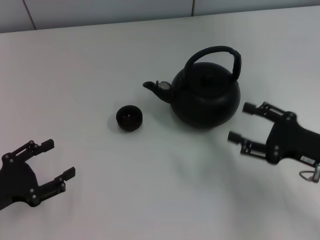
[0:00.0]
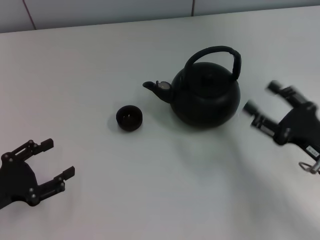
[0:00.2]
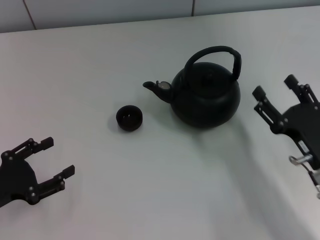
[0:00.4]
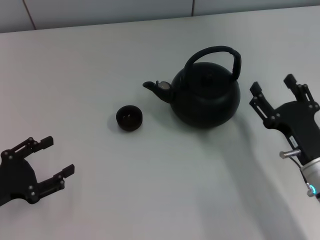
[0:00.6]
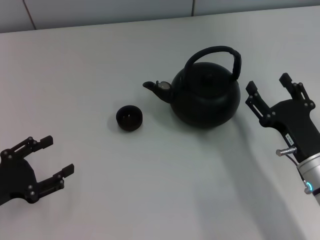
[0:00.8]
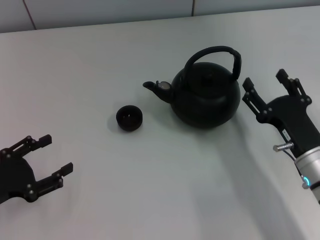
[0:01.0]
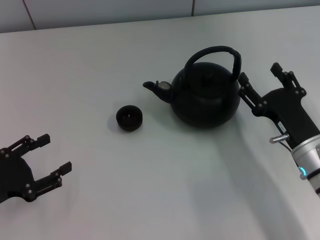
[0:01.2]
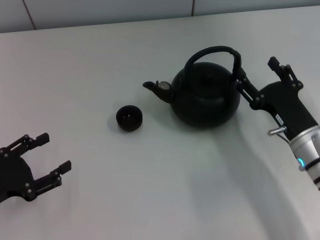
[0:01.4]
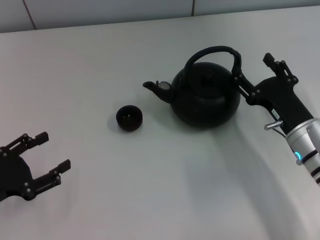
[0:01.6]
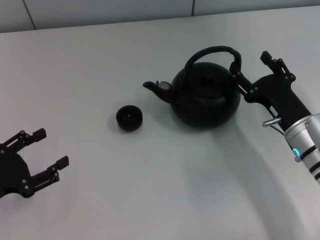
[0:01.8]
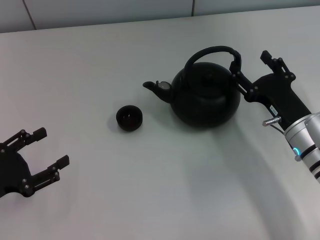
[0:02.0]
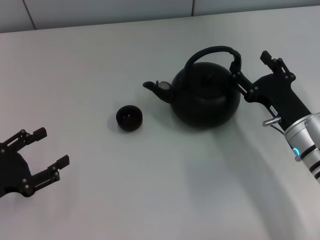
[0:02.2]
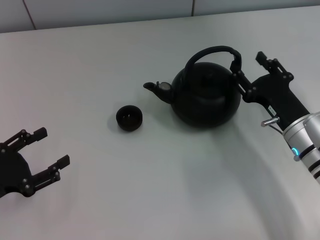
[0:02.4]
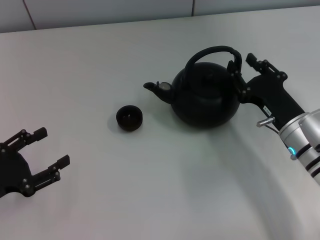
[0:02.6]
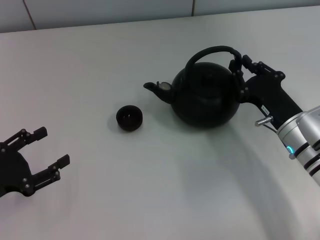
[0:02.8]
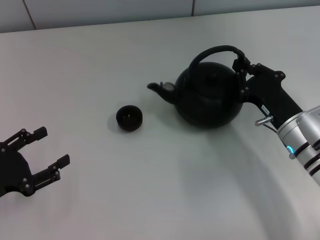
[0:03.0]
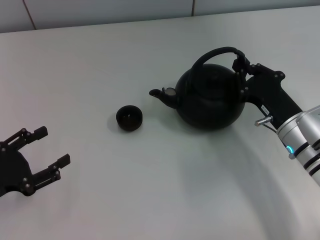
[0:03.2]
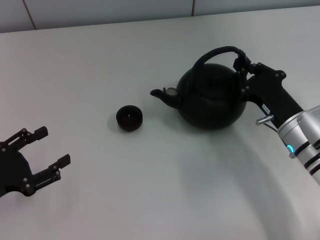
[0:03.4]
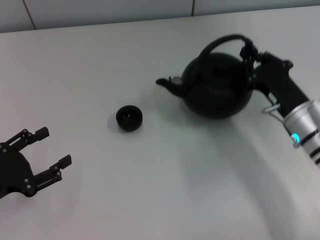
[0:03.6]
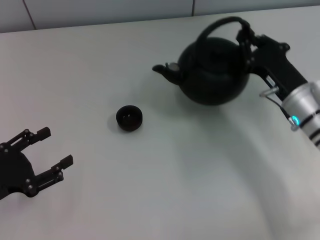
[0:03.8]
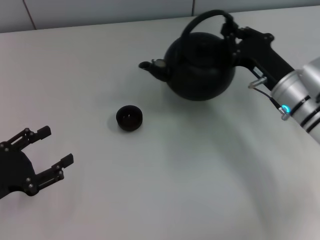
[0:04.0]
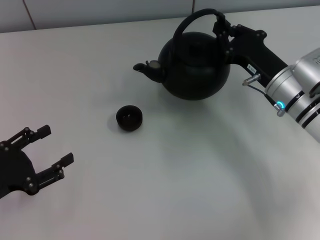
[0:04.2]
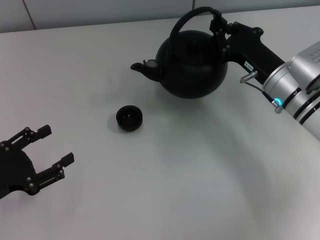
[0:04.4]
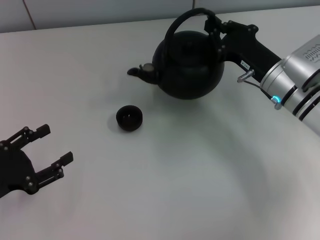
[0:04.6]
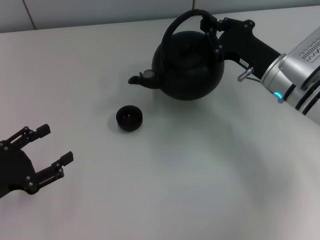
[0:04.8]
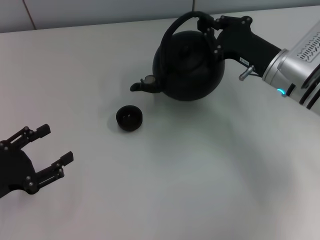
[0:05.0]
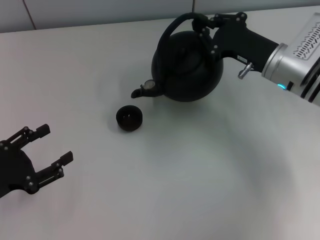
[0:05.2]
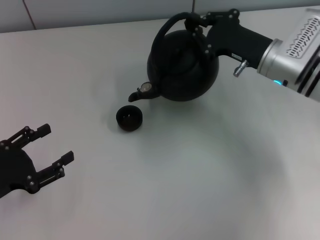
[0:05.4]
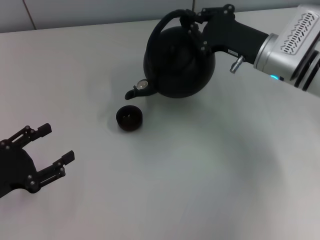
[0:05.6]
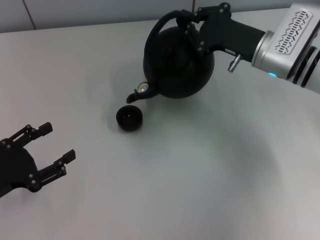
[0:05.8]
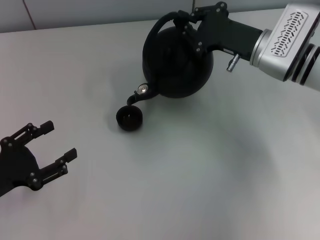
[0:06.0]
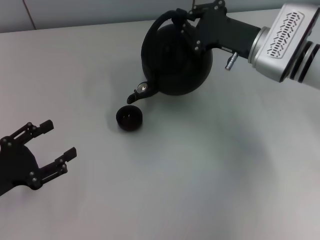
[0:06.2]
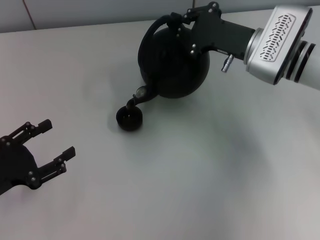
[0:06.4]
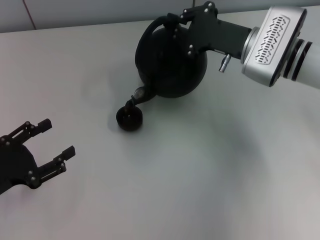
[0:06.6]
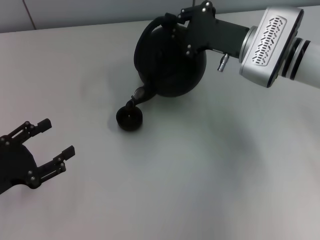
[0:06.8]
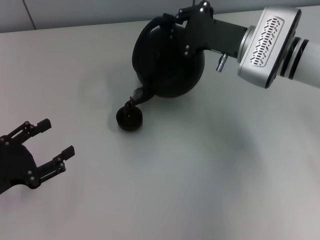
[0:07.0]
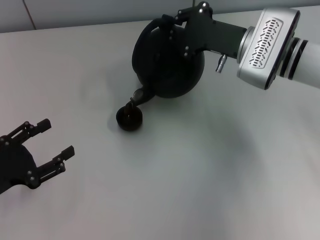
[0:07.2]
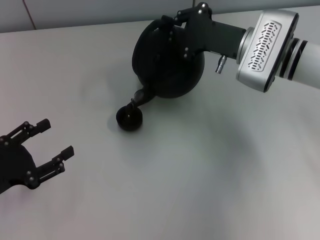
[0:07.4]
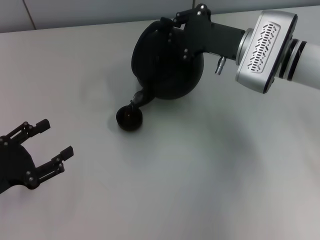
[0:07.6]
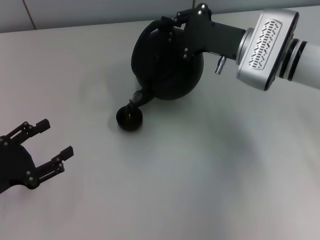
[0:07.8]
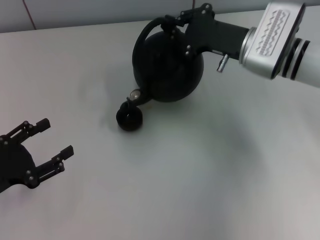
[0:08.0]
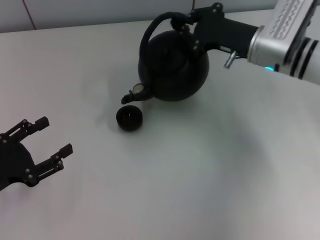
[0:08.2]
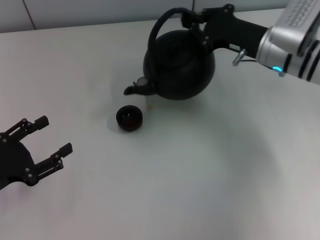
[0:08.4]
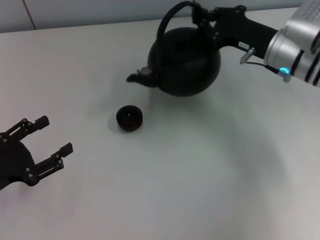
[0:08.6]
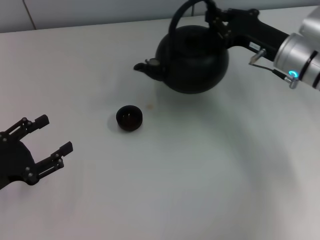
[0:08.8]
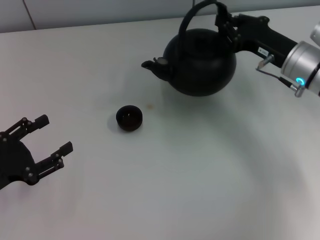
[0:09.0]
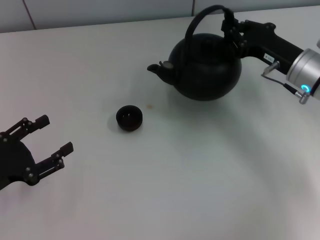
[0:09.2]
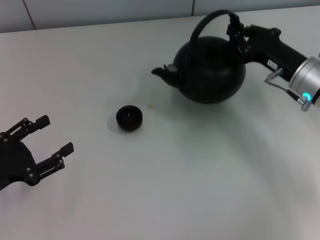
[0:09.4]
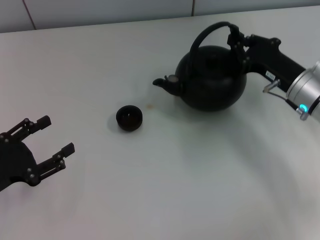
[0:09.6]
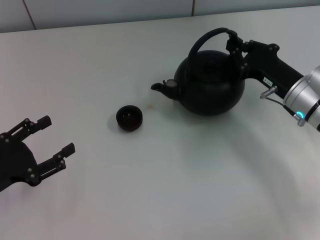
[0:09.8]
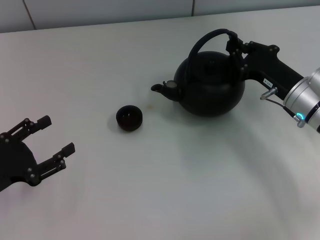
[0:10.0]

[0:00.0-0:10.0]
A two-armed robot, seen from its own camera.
Task of the whole recording: Grasp the handle of the teapot with one hand and pour tea into the teacup.
Step, 0.0 to 3.6 s: Pick up the teapot with the right gripper.
0.0 to 1.4 s: The right gripper moves to the left, approximately 5 cm.
1.4 to 2.8 s: The right gripper closes.
2.8 to 4.2 s: The right gripper goes about 5 cm forward, and closes up.
4.2 to 5.8 s: The right gripper ends up some 5 cm from where it was.
5.8 to 7.2 s: There are only small adjustments of the grippers.
8.6 to 10.0 s: The right gripper moves backward and downward, about 10 cm.

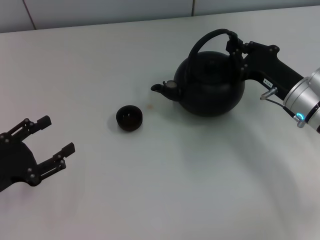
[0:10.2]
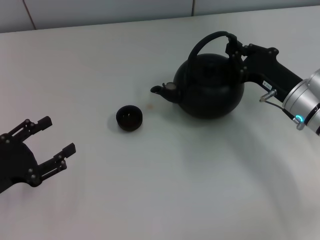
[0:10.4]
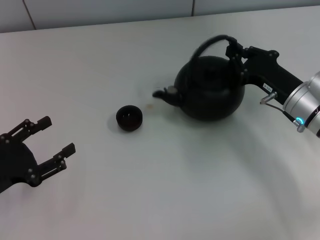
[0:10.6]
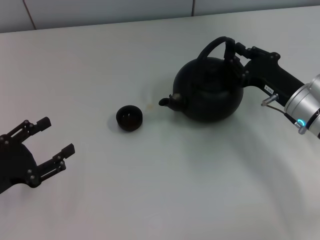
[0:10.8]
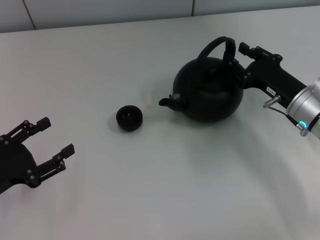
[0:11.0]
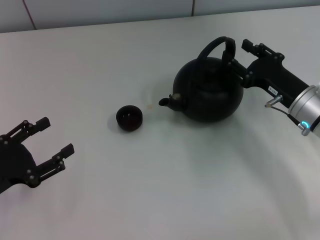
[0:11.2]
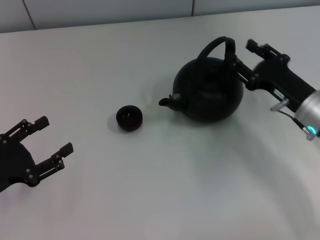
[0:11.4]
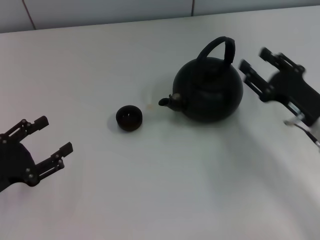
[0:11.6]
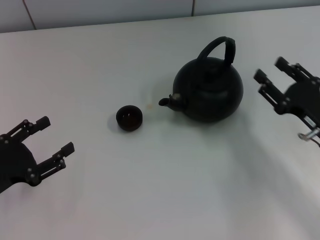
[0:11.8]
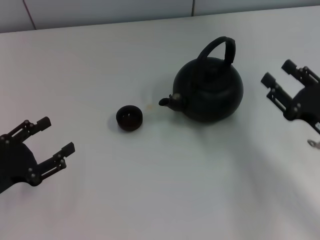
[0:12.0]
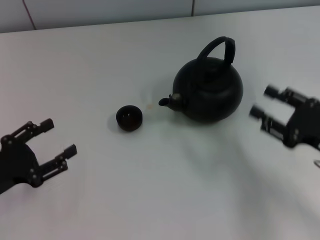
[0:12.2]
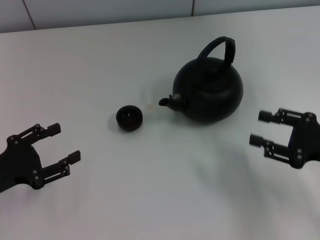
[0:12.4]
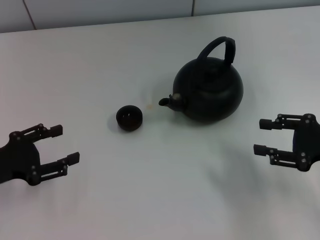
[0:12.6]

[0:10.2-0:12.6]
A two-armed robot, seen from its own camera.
Task of the whole recording: Grasp the handle of the teapot with one hand and pour tea into the teacup.
10.2 to 11.4 s: The right gripper opens.
11.4 to 12.6 s: The right gripper goes roughly 10 cm to the right and backward.

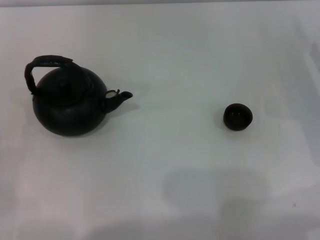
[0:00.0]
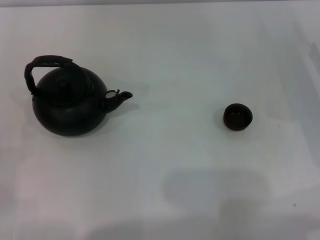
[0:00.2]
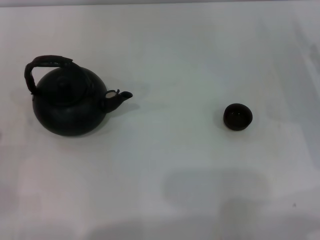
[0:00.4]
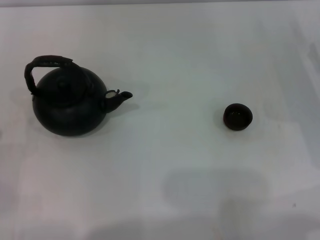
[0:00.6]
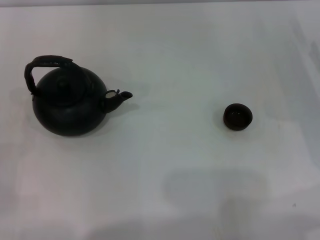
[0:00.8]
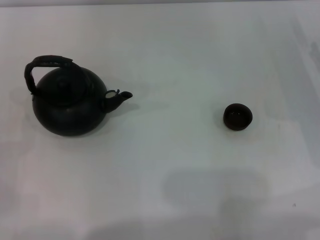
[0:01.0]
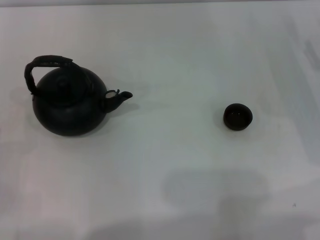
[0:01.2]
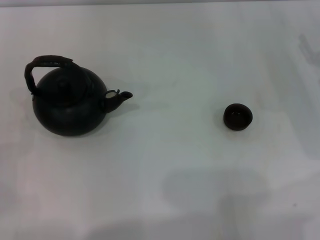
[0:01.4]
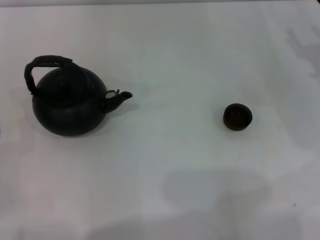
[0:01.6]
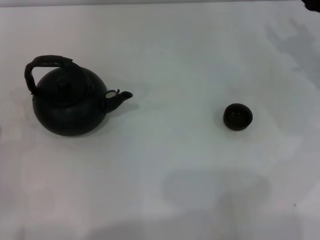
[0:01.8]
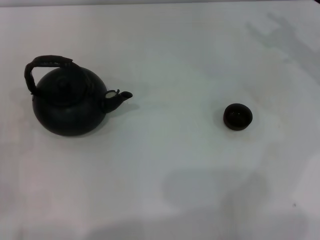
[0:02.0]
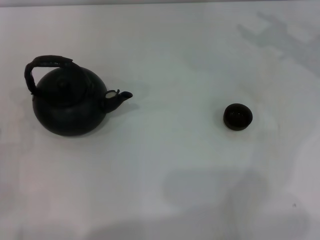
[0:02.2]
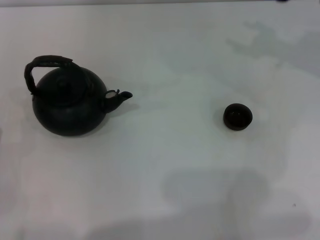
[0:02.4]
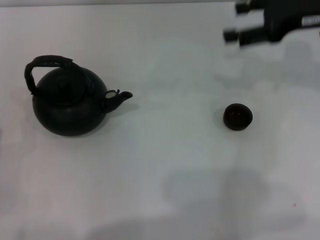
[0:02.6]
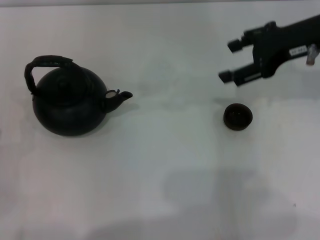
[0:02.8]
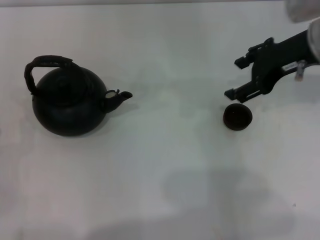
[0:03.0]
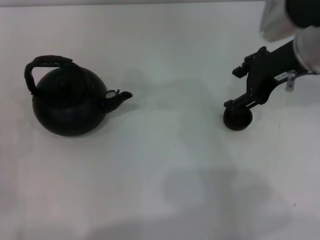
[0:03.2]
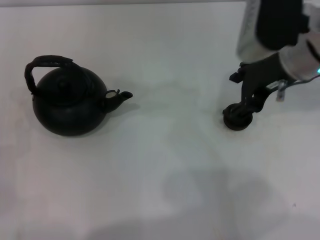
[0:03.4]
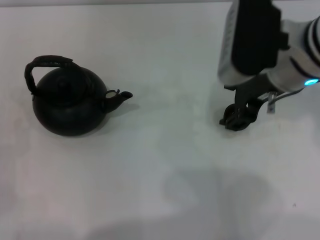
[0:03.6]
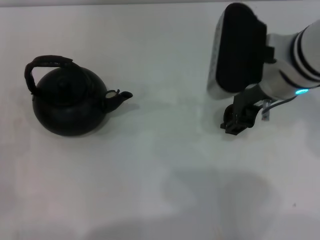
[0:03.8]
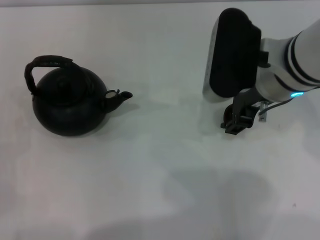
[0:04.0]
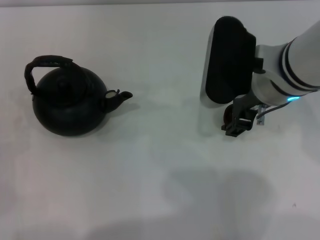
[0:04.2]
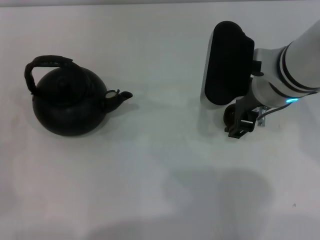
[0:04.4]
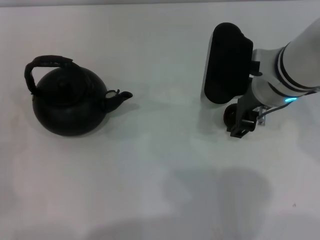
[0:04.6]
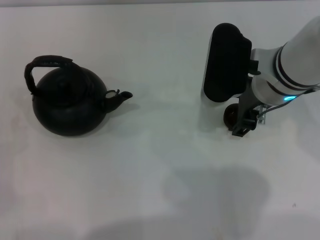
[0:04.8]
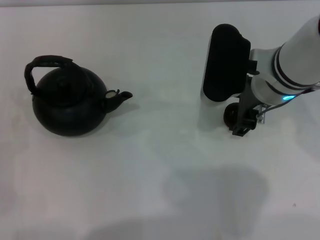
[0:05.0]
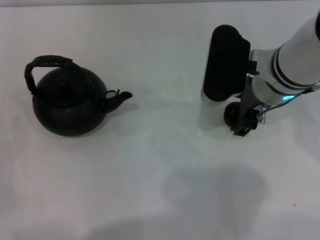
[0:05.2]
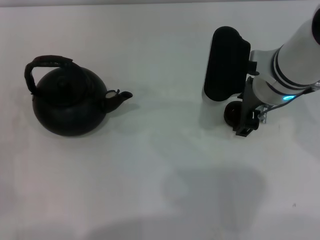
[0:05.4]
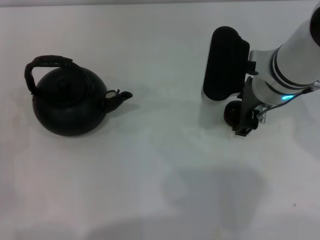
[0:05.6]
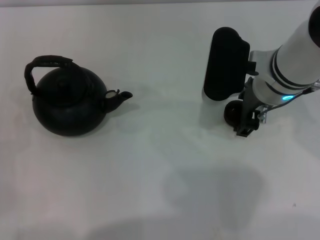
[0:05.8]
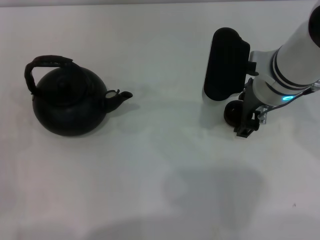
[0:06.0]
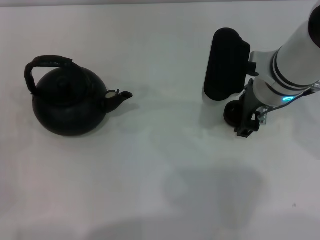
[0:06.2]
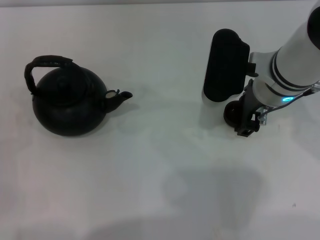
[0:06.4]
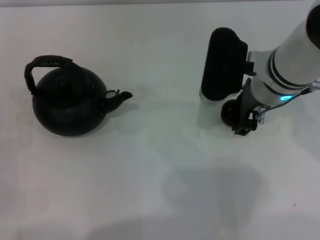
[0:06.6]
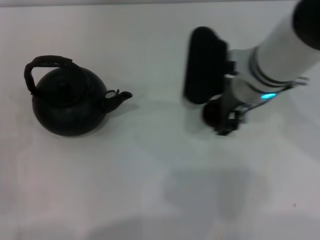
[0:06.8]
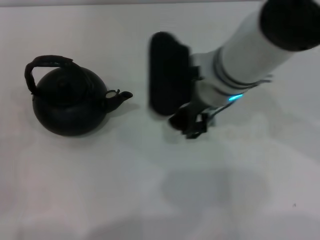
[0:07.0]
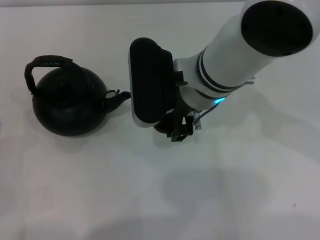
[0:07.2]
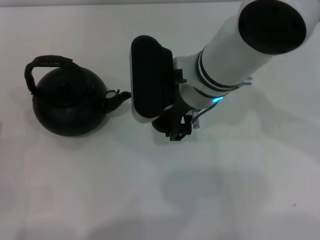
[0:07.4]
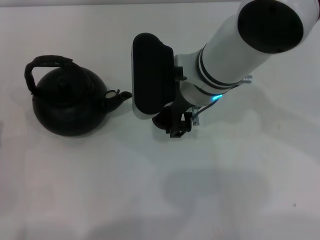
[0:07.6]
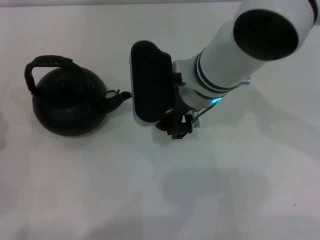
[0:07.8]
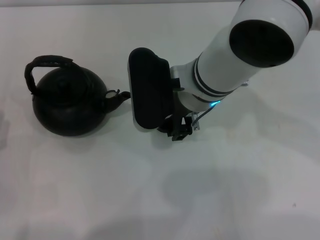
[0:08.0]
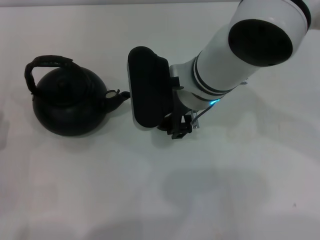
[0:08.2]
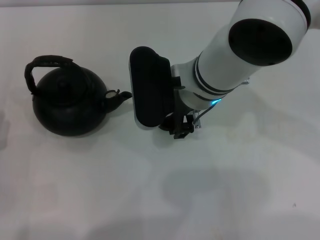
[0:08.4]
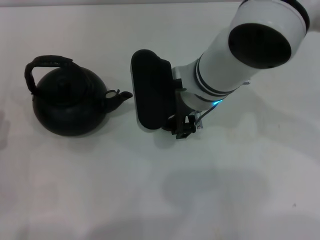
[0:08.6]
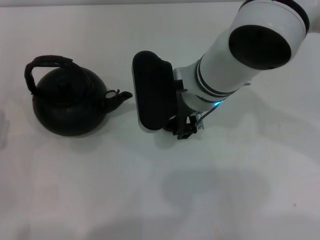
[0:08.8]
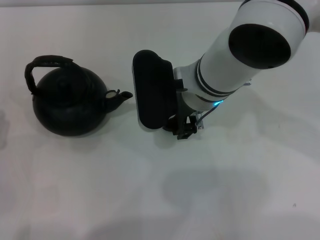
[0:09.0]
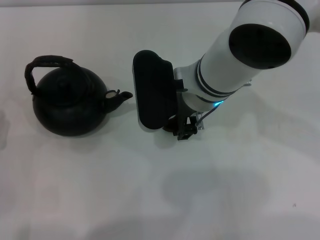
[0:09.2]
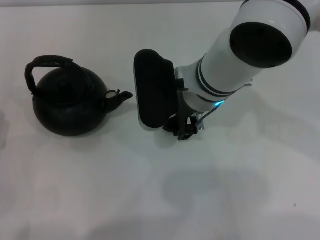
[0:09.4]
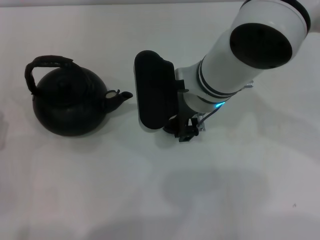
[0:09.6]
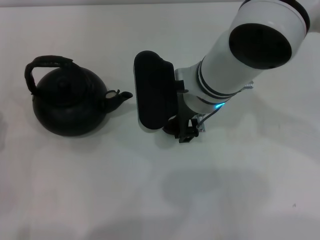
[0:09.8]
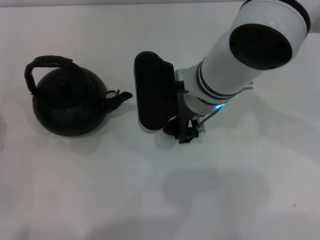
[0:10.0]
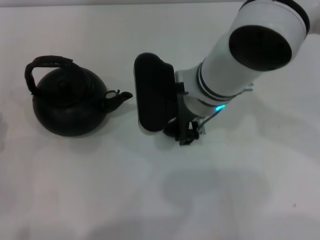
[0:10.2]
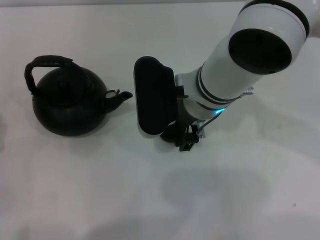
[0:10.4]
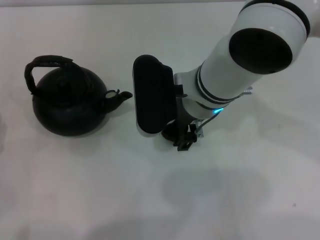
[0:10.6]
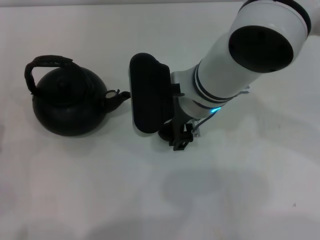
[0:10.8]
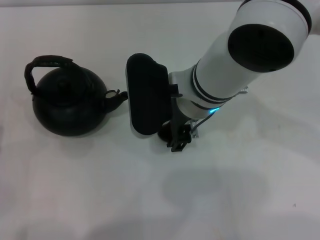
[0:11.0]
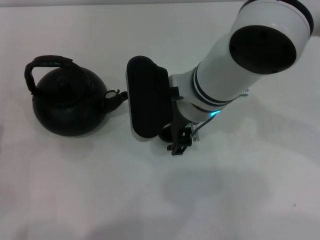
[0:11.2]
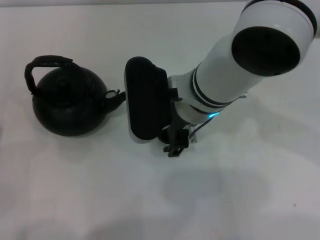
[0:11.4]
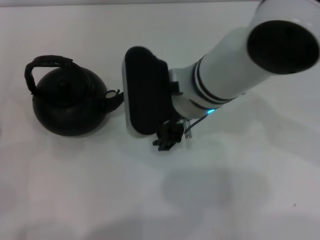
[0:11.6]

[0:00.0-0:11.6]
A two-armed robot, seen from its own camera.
Task of the whole recording: Grasp the handle of the teapot with one hand and pour tea into the teacup.
Step, 0.0 to 6.4 s: Pick up the teacup with the right gripper.
1.4 to 2.8 s: The right gripper moves upward and to the left, some 15 cm.
2.8 to 4.4 s: The right gripper travels to the left by about 10 cm.
4.4 to 5.8 s: The grippers make only small movements.
5.8 to 7.2 s: The right gripper goes some 10 cm to the left.
7.2 to 8.8 s: The grippers stay close to where they were, moving slightly.
8.8 to 10.2 s: The two grippers keep their place.
10.2 to 11.6 s: There are only small adjustments of the grippers.
